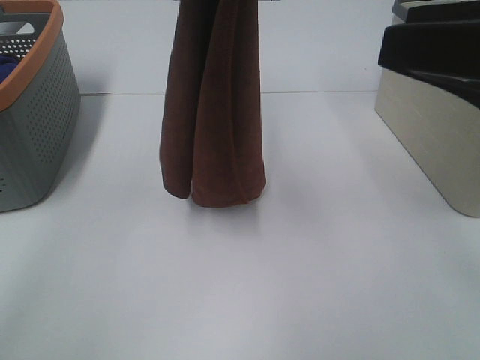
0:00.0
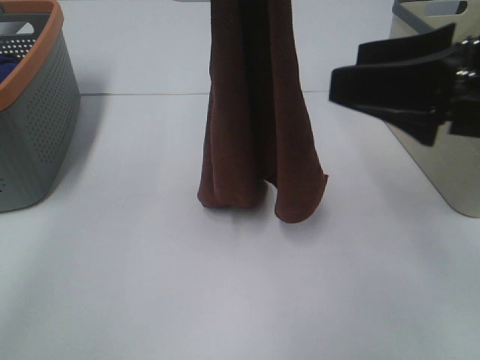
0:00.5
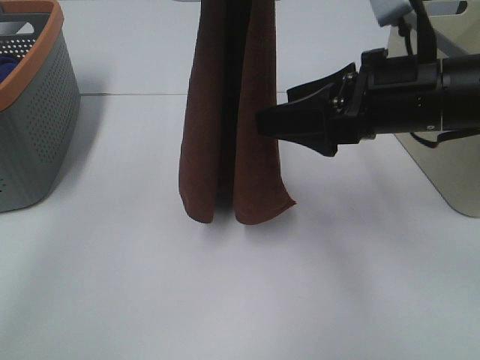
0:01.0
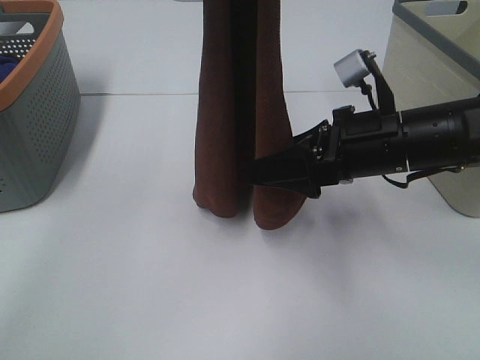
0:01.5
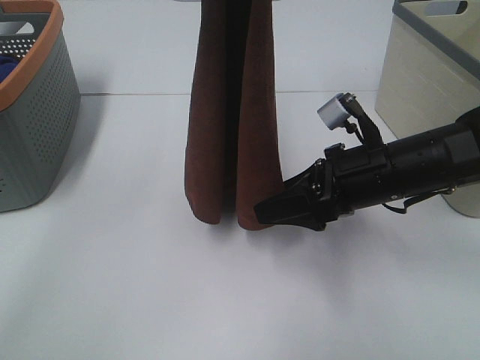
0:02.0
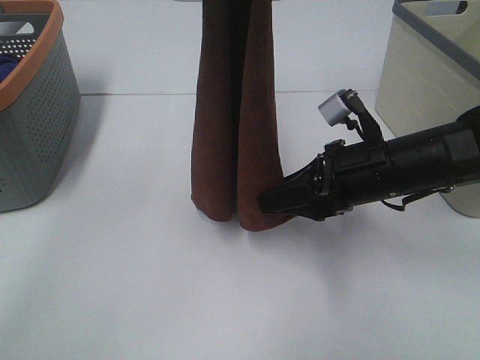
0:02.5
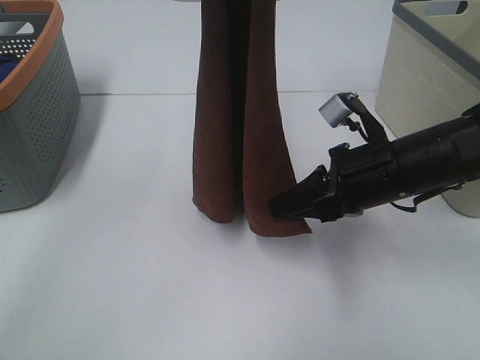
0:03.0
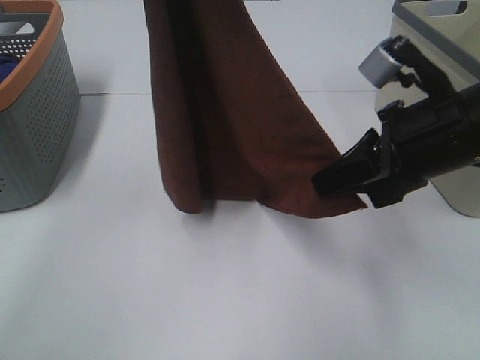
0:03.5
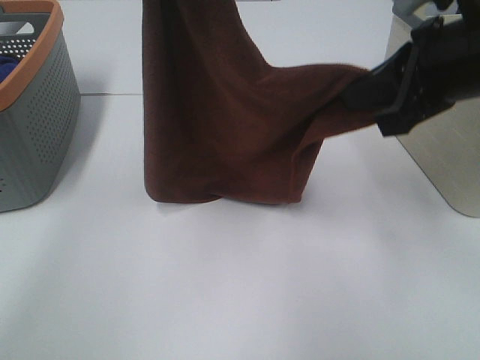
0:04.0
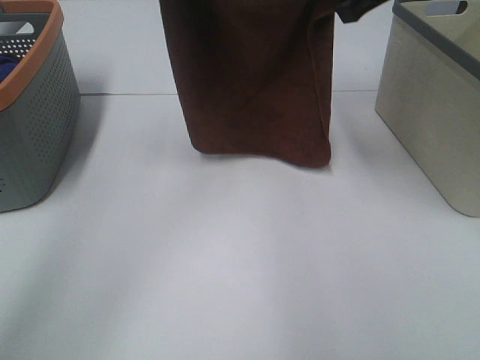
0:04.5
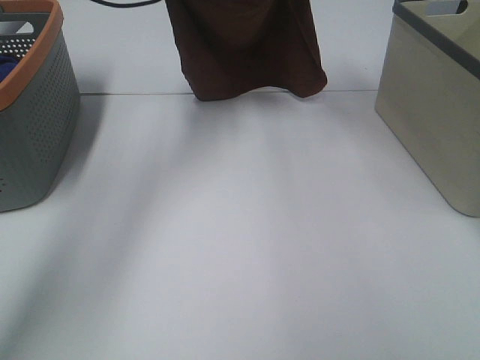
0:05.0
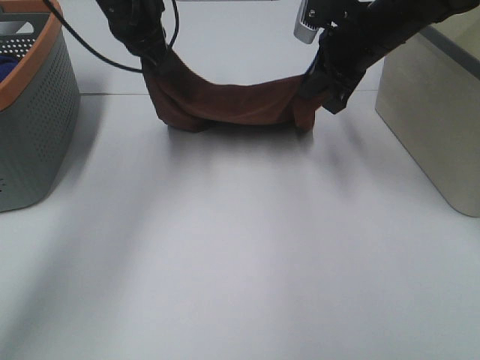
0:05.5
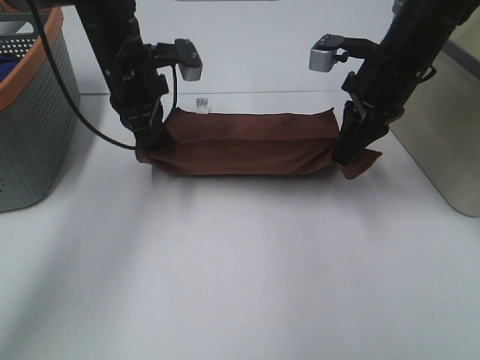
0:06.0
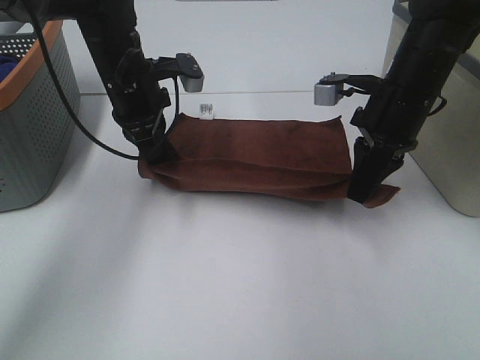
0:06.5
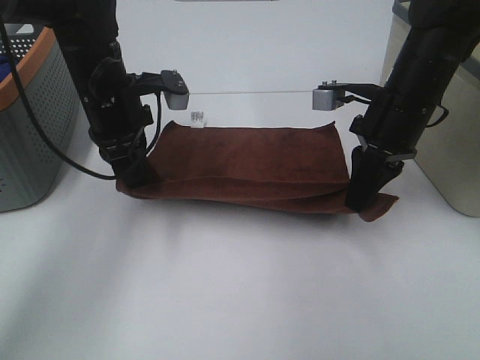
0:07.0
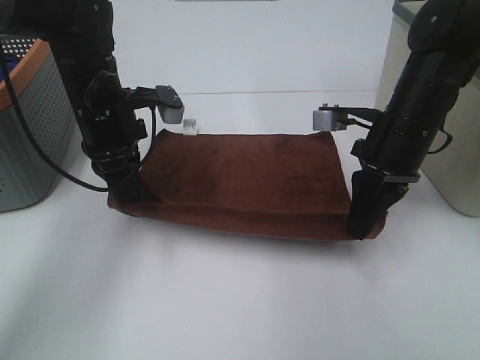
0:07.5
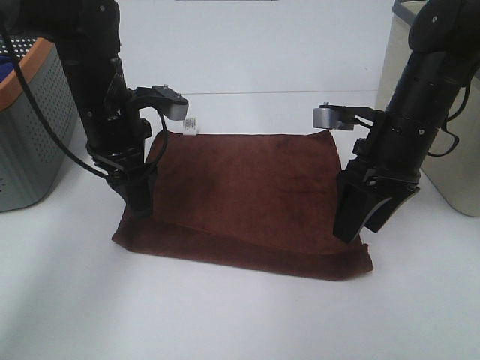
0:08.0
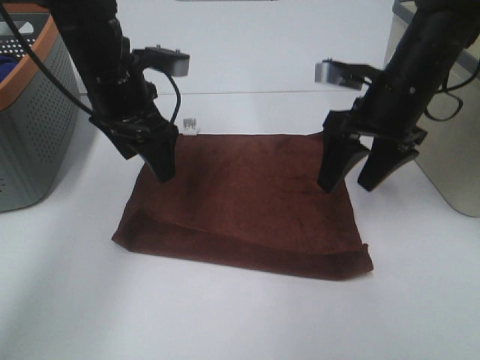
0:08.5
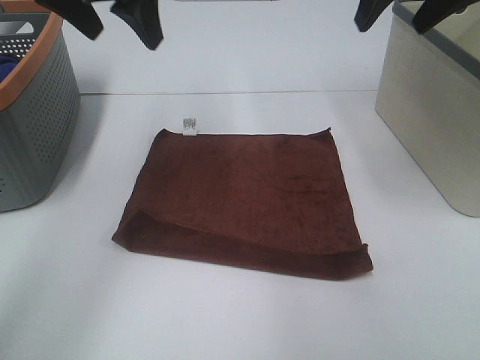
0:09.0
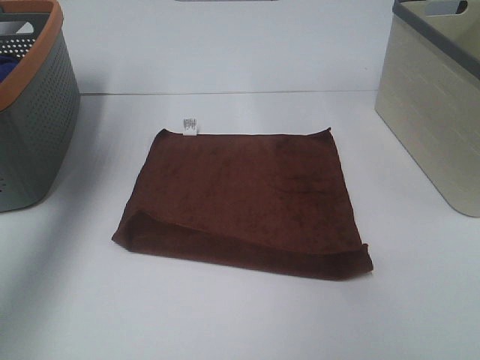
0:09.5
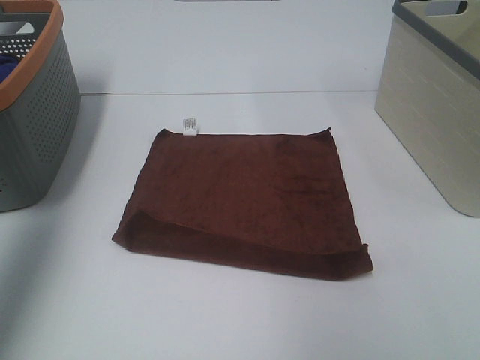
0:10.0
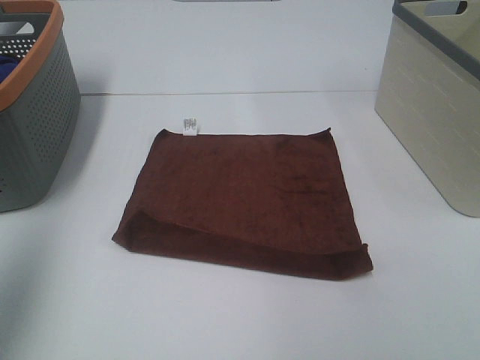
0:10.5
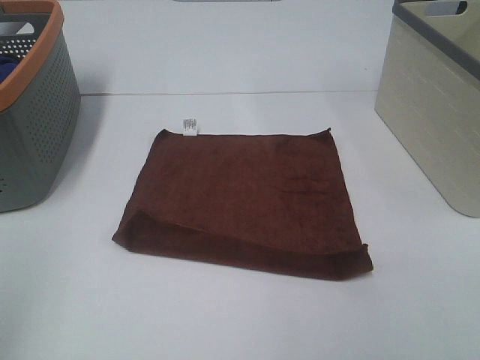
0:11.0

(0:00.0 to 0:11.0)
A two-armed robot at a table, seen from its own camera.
Task of the whole recording: Remove the towel and place it.
Step, 0:01.5 - 0:03.5: Left hand: spread the brown towel flat on the table.
Step, 0:01.5 - 0:03.5: Right hand: spread the brown towel flat on the table.
0:00.0 - 0:02.0: The right gripper is displaced downward and forward by roughly 20 cm.
0:02.0 - 0:03.5: The right gripper heads upward, covering approximately 10 cm, and closes its fingers.
0:03.5 - 0:05.5: The left gripper goes approximately 20 cm downward and forward, while the right gripper heads forward, covering roughly 20 cm.
0:05.5 - 0:07.5: The two grippers go about 10 cm backward and downward.
0:07.5 - 0:09.0: Both grippers move upward, about 20 cm. The left gripper opens. Meanwhile the right gripper opens up.
0:09.0 - 0:11.0: The right gripper is displaced backward by roughly 35 cm; the left gripper travels backward and to the left by some 40 cm.
